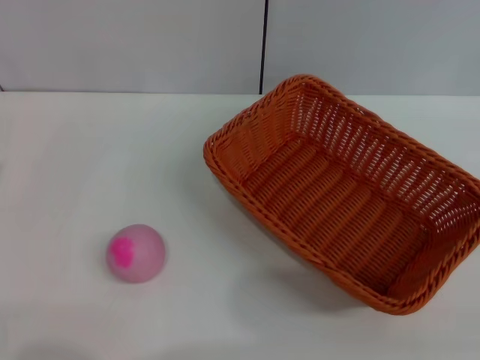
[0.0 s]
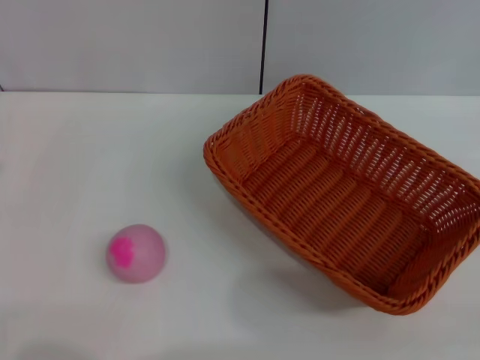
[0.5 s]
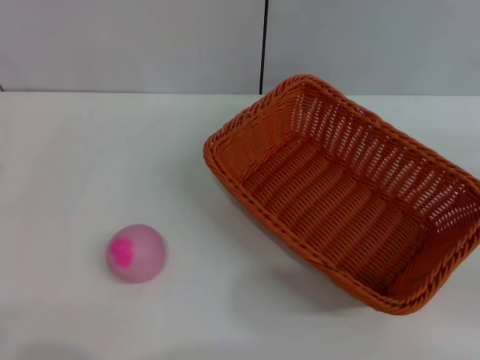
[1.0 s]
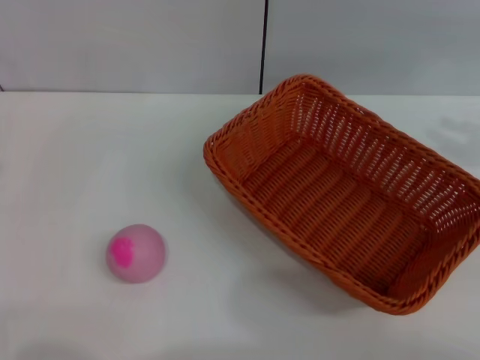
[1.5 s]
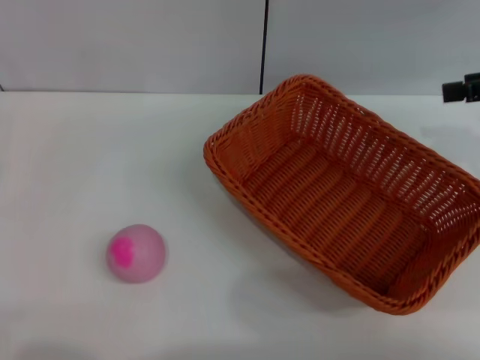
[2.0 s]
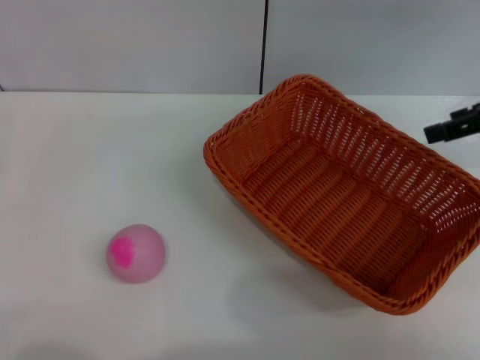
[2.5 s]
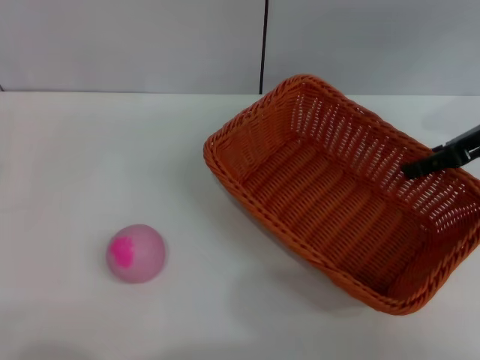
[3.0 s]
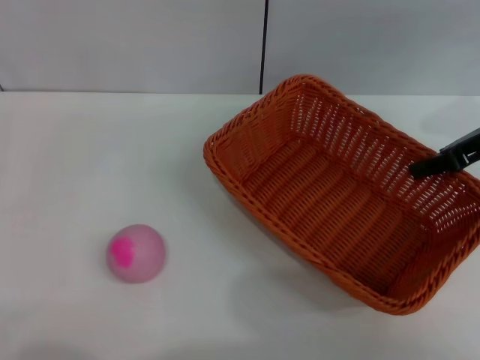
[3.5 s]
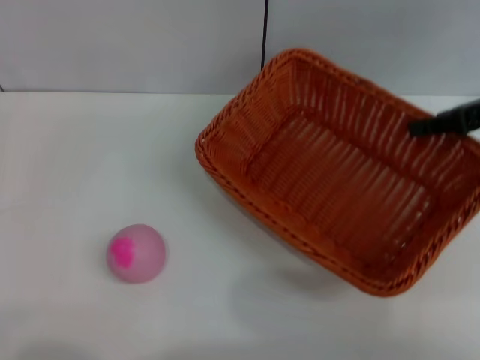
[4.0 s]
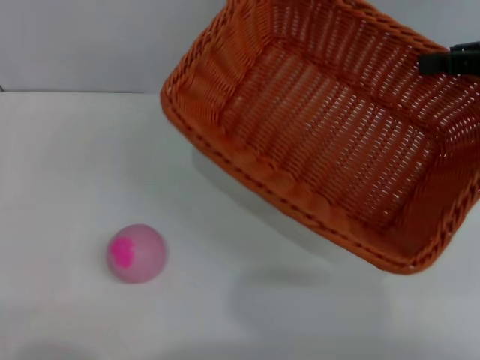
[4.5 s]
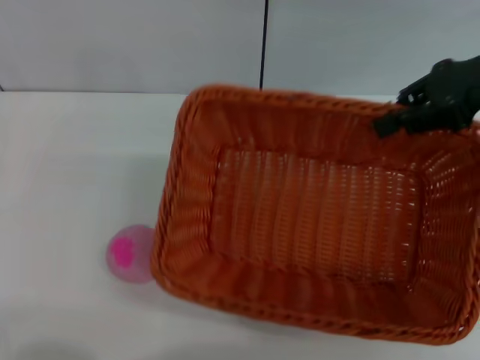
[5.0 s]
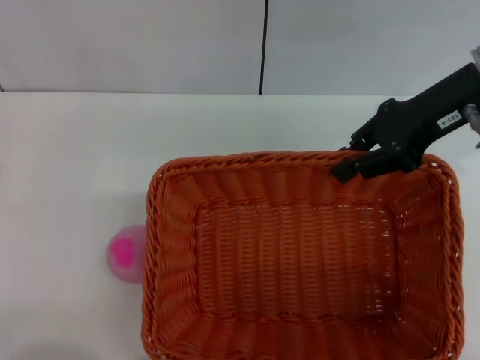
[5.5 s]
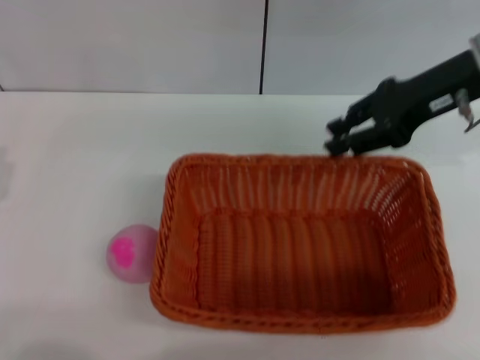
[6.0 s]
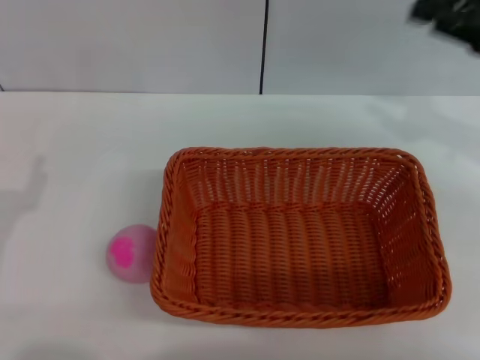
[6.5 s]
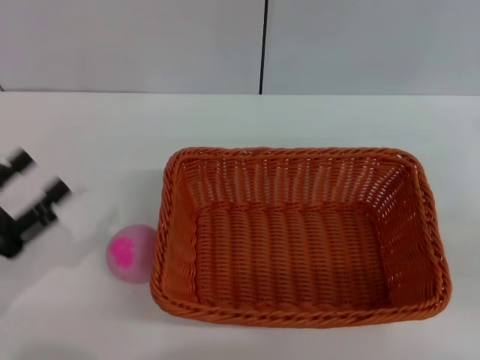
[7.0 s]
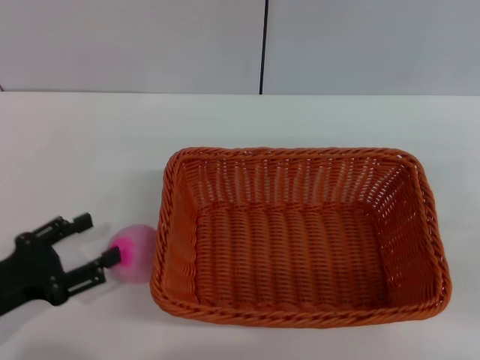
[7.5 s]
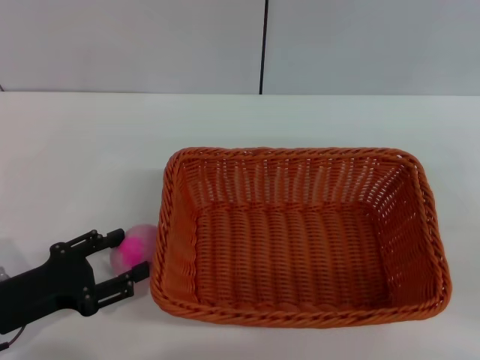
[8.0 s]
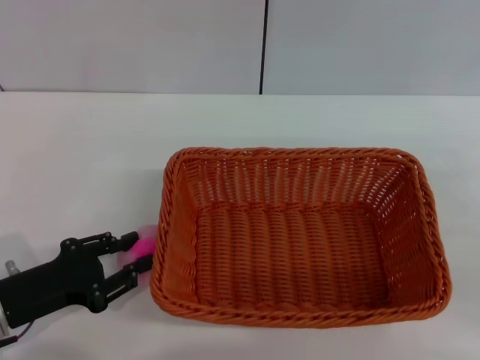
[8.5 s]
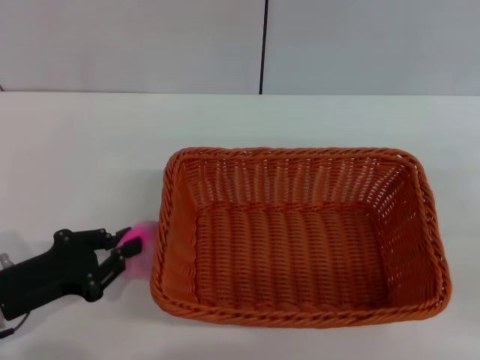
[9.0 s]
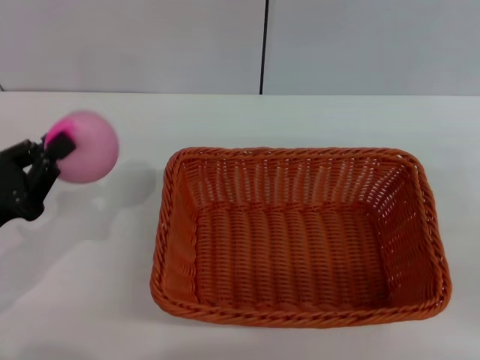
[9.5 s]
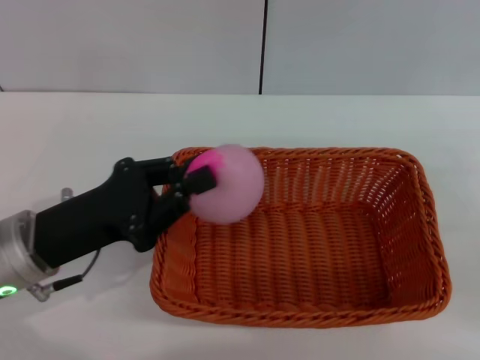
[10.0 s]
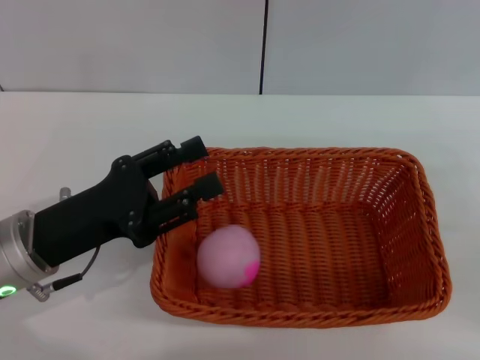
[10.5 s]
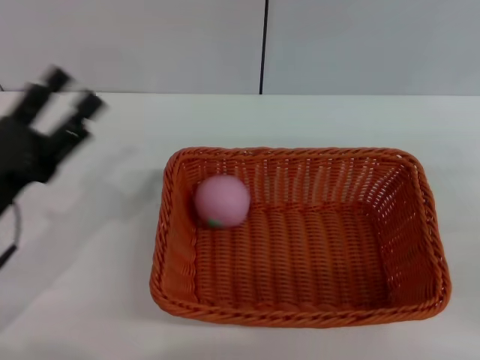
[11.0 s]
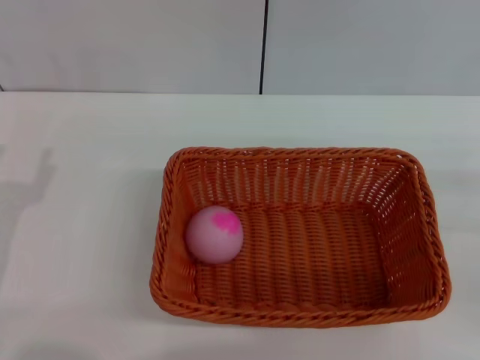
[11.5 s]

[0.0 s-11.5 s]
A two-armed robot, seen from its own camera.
Step, 0.0 to 3.5 s: Pick up the light basket with the right gripper.
Step, 4.0 to 6.0 s: Place the light basket in the center of view with the right gripper.
Step, 6.5 to 9.0 s: Pick up the peach with the left gripper.
Step, 9.5 to 10.5 s: Place the peach into the basket with the left gripper.
0.0 to 2.0 s: The right gripper travels upward and forward by approximately 25 cm, and opens up.
2.0 to 4.0 s: The right gripper closes up.
4.0 to 6.0 s: The right gripper shifts approximately 10 cm to the left.
6.0 to 7.5 s: The right gripper moves to the right, backward and downward, roughly 25 cm.
7.5 to 9.5 s: The left gripper closes up.
9.5 to 11.5 s: The left gripper reaches approximately 10 cm to the right, then returns, and opens up.

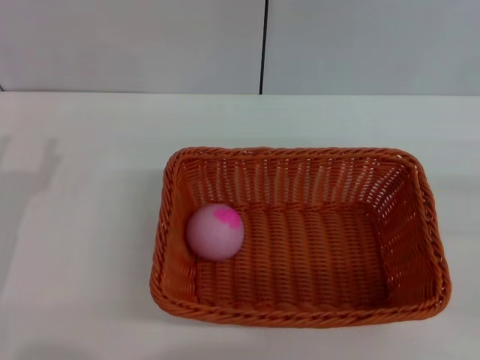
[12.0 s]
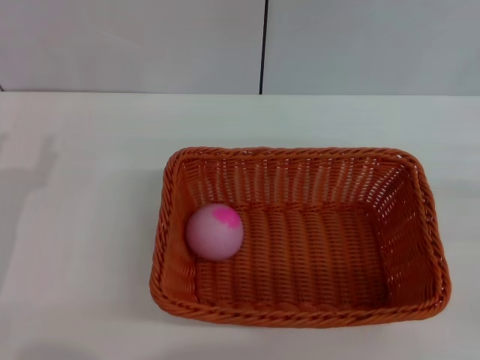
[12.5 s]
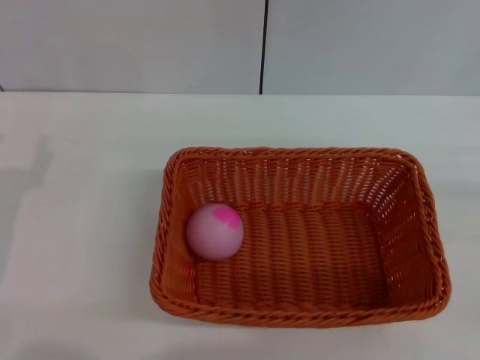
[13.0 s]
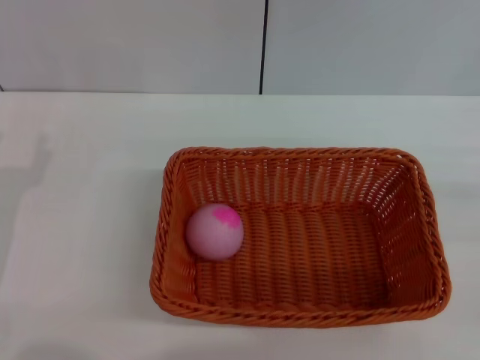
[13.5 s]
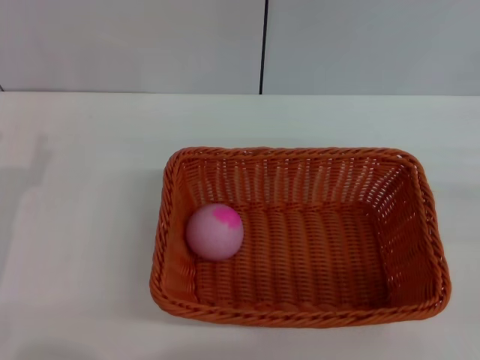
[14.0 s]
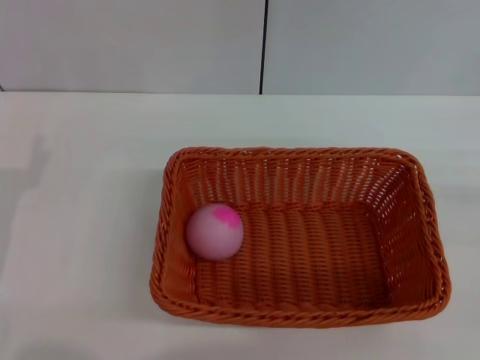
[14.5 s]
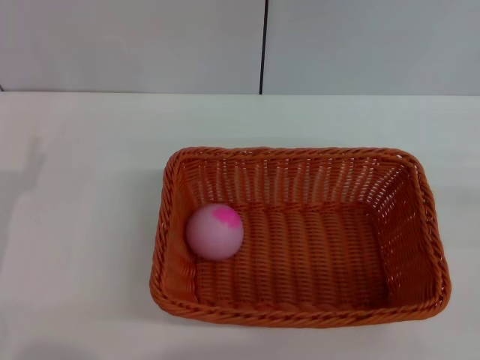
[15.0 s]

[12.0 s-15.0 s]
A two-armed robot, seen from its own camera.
13.5 to 15.0 s: The two grippers keep their place.
